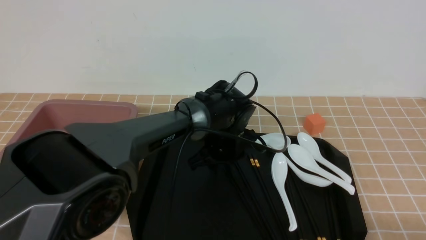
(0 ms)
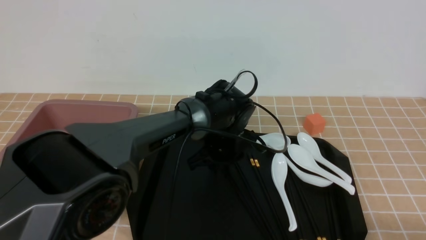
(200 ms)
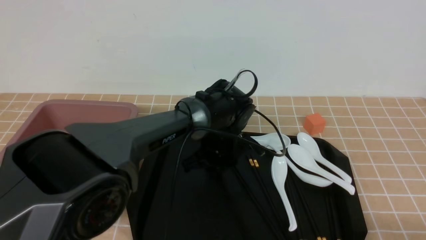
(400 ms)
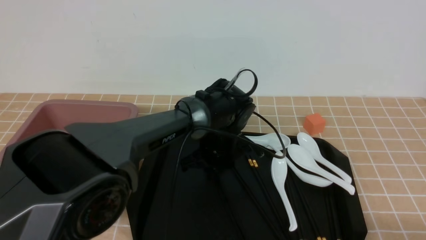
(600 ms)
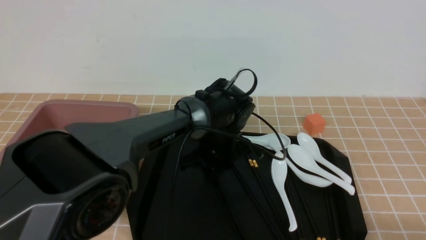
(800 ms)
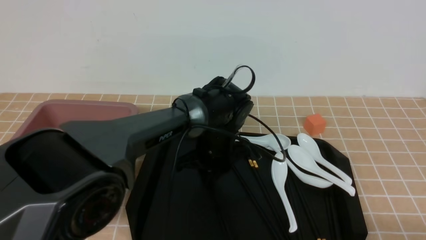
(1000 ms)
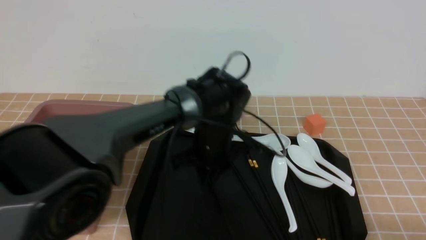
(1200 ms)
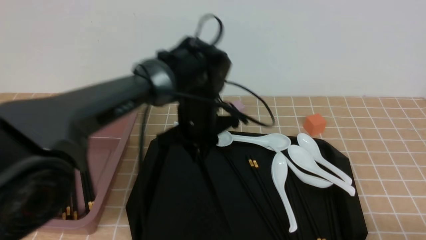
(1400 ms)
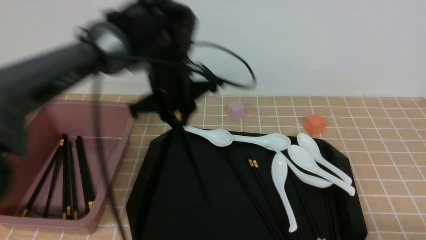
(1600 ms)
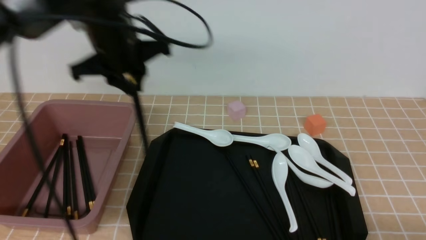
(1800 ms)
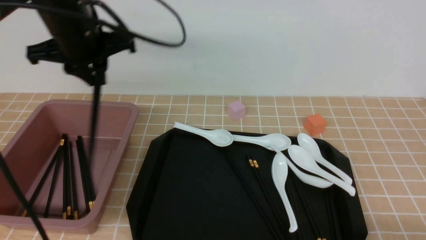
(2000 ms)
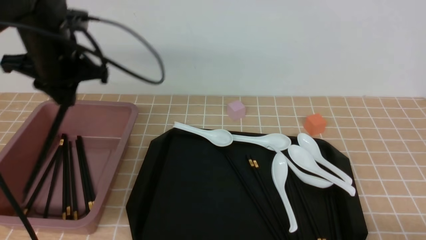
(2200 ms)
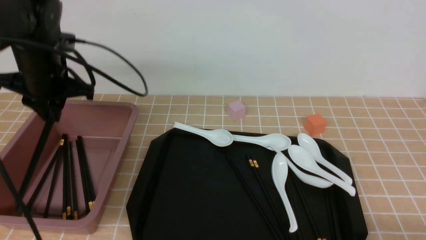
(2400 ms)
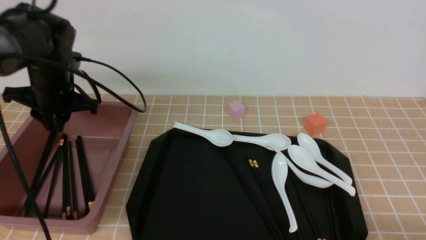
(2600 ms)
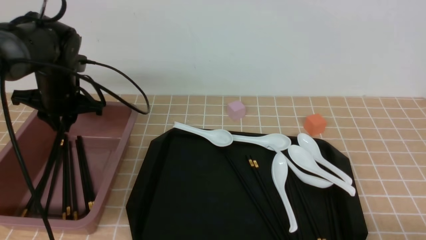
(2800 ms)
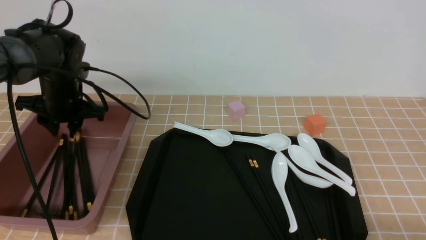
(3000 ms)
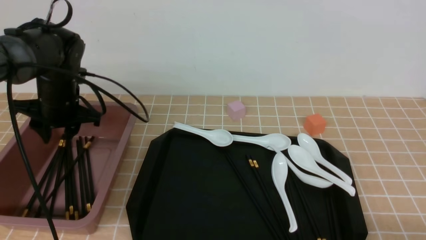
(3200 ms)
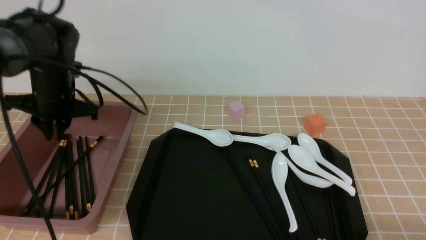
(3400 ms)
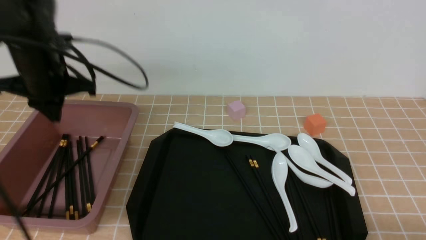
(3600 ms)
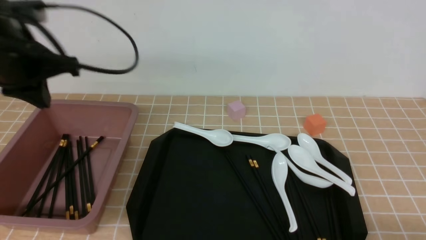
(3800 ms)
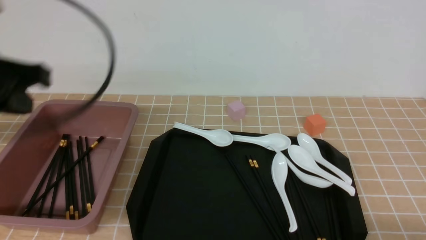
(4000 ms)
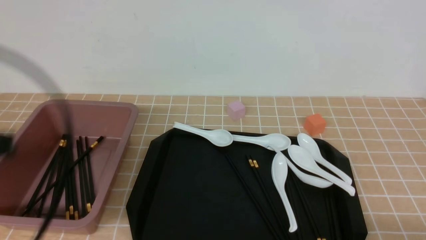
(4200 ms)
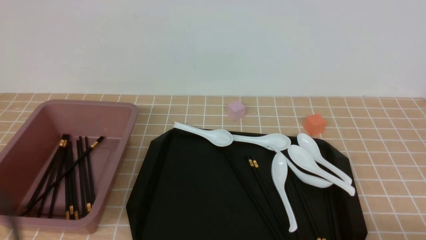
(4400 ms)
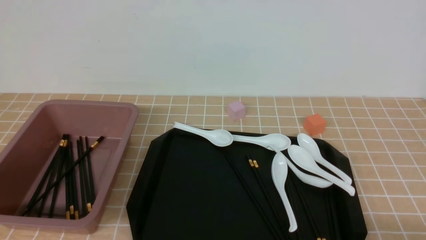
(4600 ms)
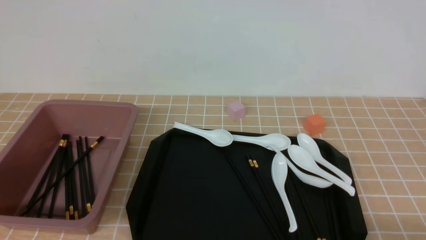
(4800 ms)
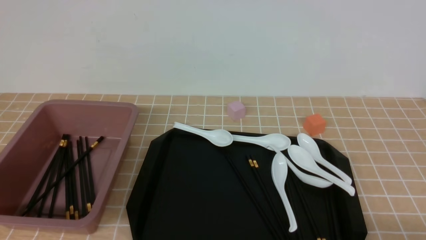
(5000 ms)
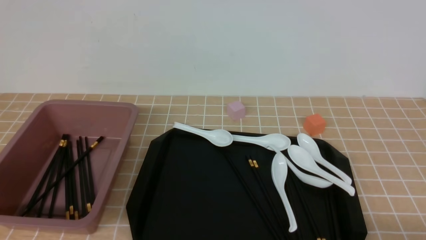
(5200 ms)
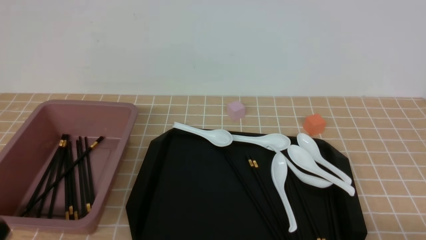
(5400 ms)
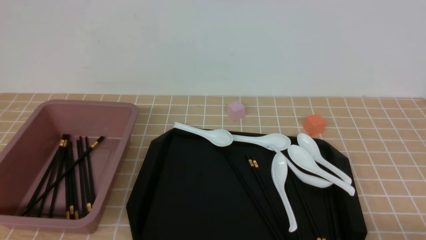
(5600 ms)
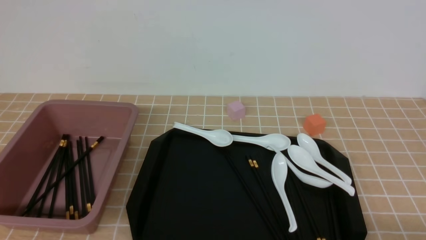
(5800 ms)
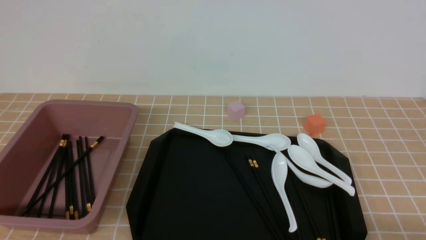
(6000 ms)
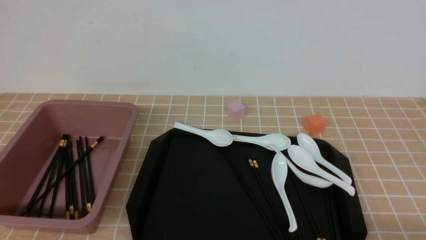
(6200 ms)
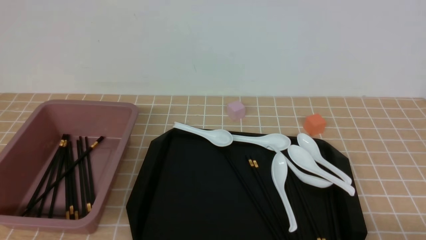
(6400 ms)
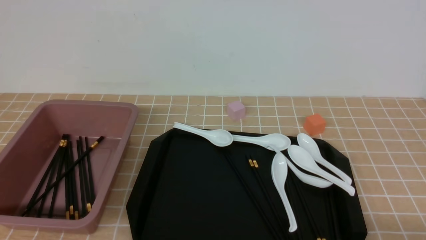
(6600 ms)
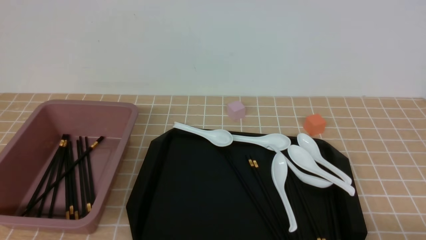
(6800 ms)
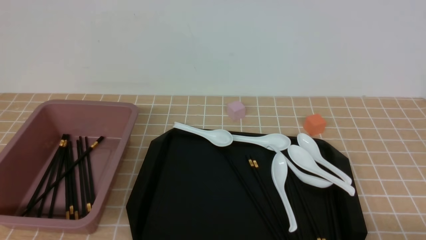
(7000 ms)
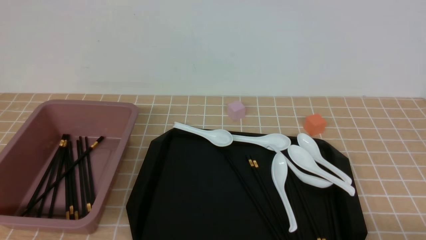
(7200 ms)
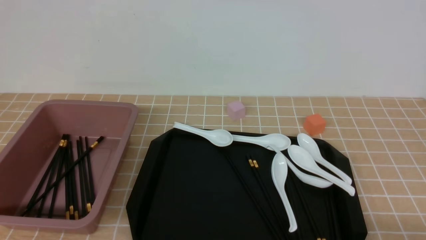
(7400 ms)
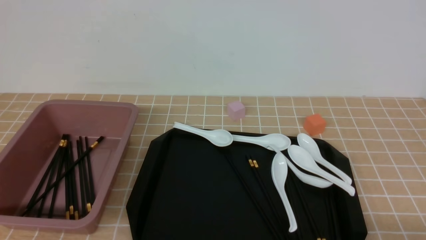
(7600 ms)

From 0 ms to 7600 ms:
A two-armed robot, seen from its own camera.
Step, from 1600 ms to 3400 ms: use the left arm to put the chopsticks into the lunch box.
From 0 ms to 1600 ms: The left gripper is displaced upward and to the left by some 15 cm, and closes.
From 1600 ms to 3000 ms: The left gripper heads to the left, covering about 20 cm.
From 3000 ms to 4600 ms: The left gripper heads backward, covering roughly 35 cm, and closes.
From 6000 ms to 7600 ms: Neither gripper changes place.

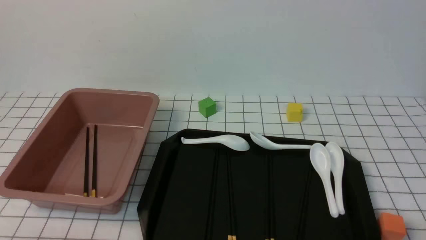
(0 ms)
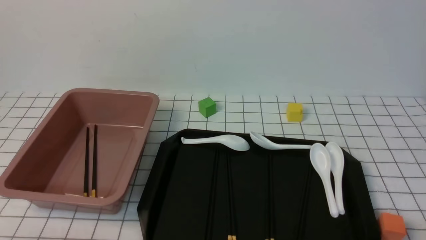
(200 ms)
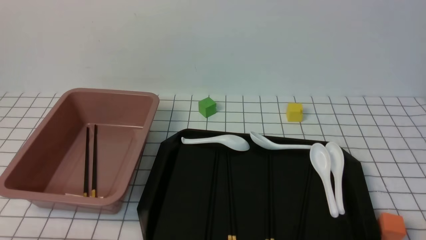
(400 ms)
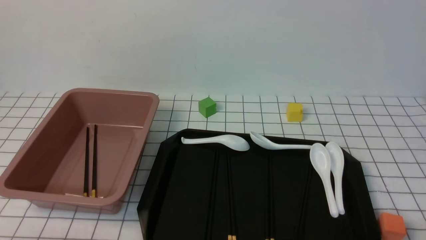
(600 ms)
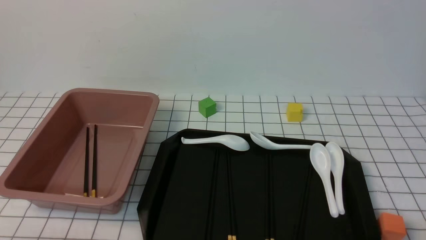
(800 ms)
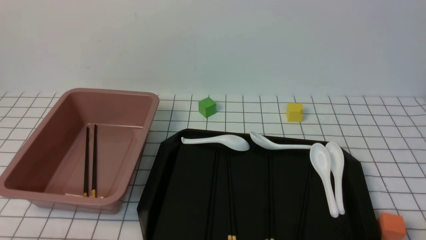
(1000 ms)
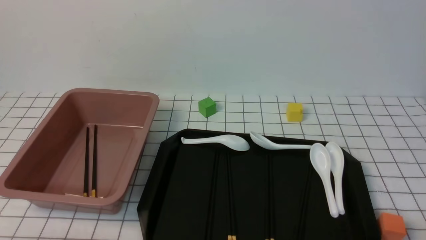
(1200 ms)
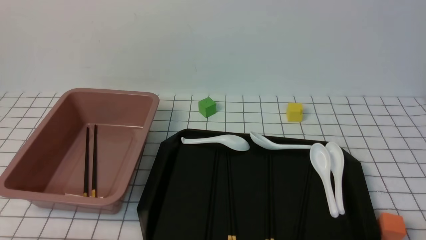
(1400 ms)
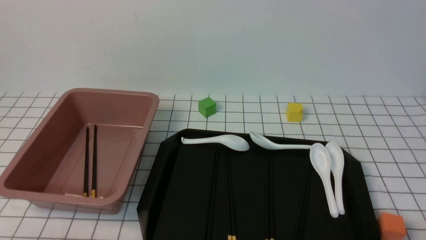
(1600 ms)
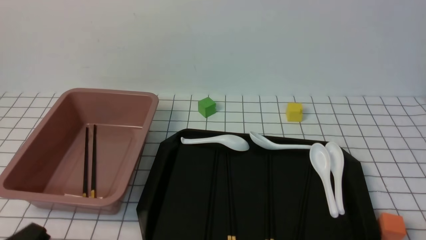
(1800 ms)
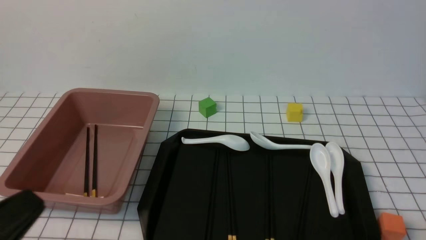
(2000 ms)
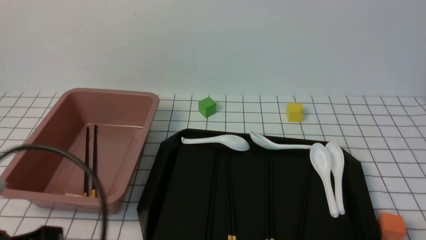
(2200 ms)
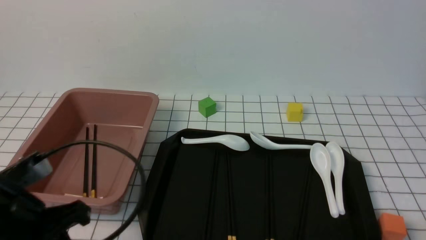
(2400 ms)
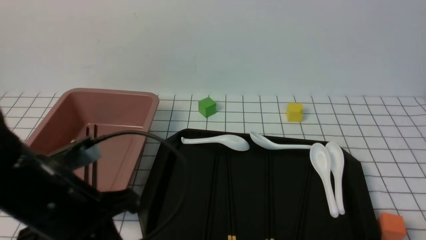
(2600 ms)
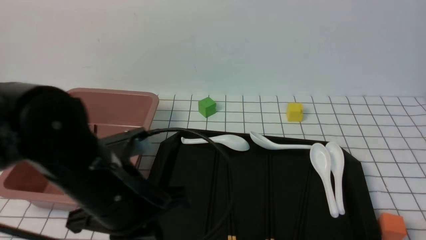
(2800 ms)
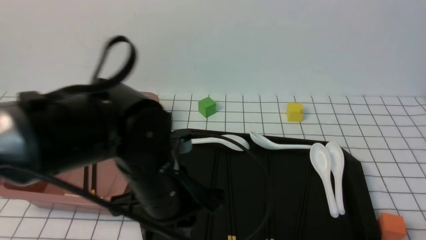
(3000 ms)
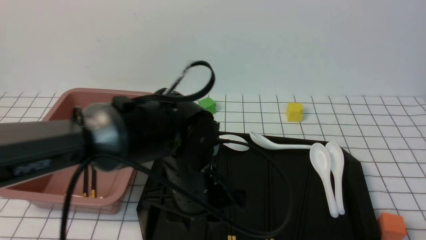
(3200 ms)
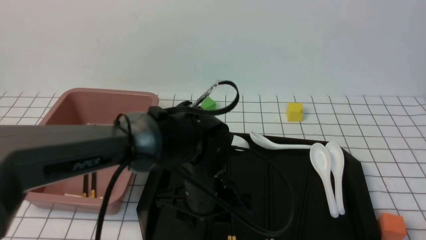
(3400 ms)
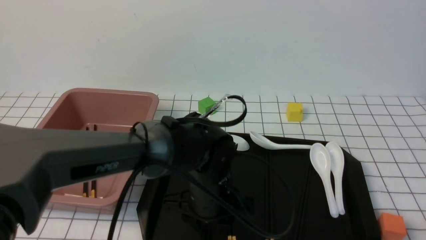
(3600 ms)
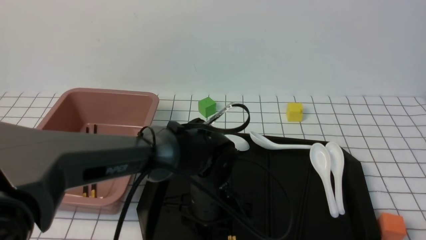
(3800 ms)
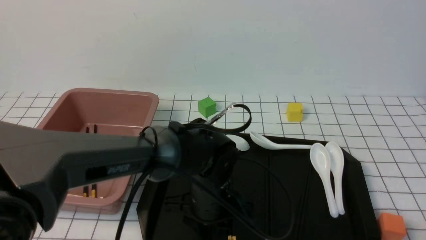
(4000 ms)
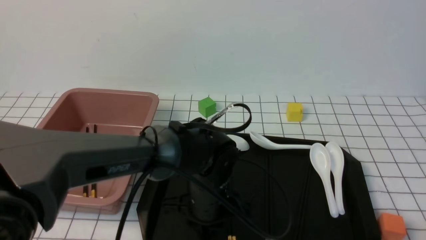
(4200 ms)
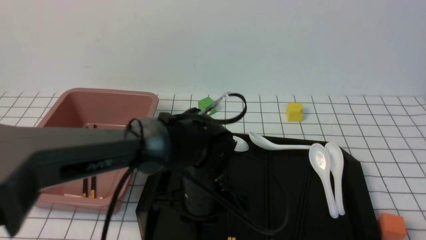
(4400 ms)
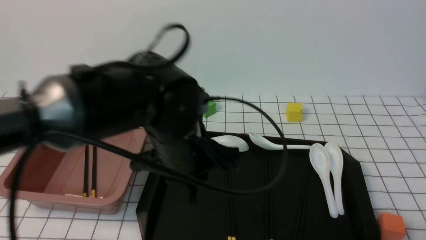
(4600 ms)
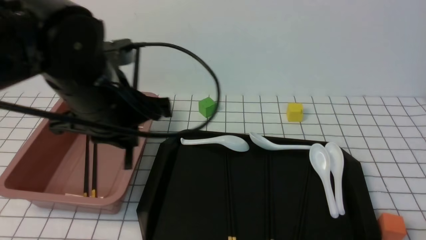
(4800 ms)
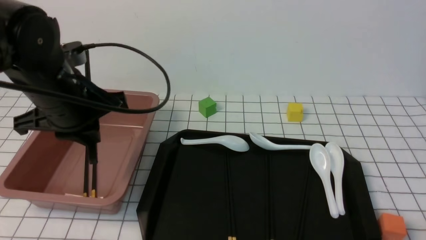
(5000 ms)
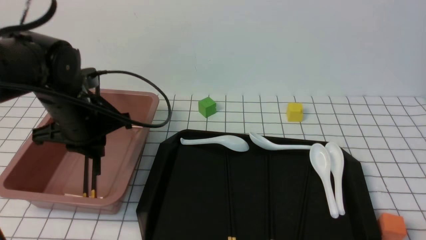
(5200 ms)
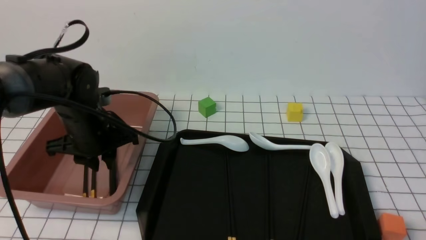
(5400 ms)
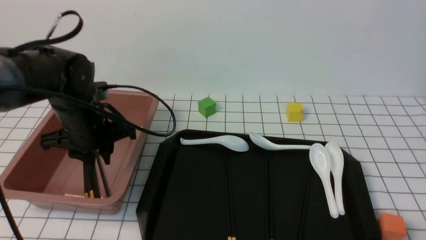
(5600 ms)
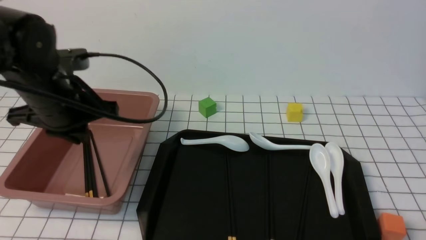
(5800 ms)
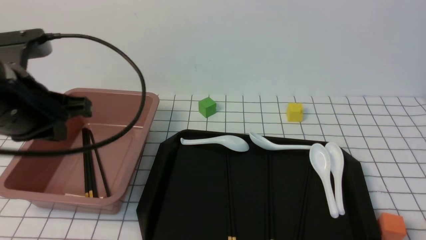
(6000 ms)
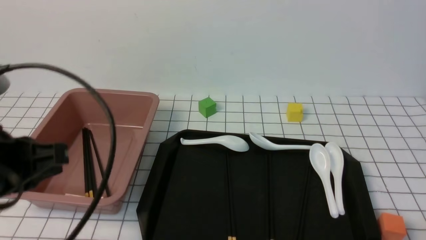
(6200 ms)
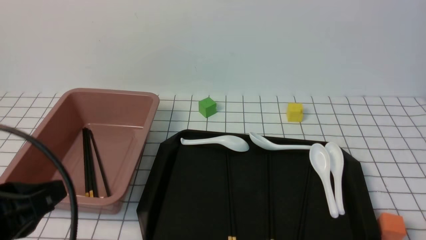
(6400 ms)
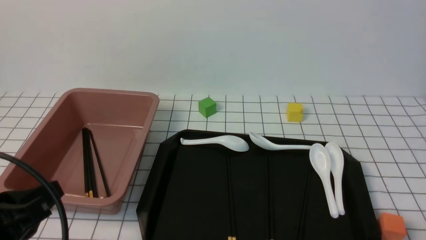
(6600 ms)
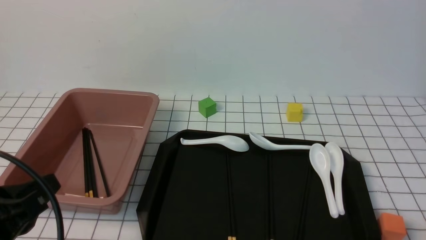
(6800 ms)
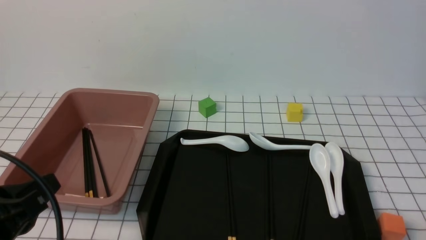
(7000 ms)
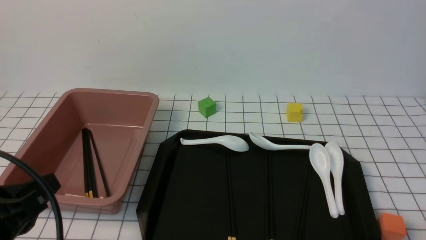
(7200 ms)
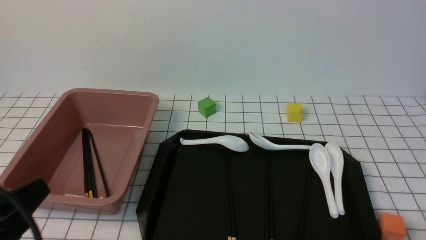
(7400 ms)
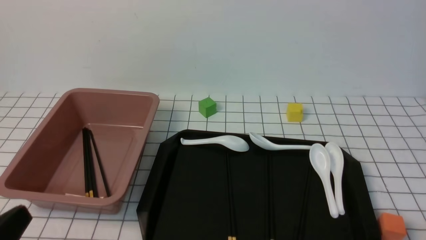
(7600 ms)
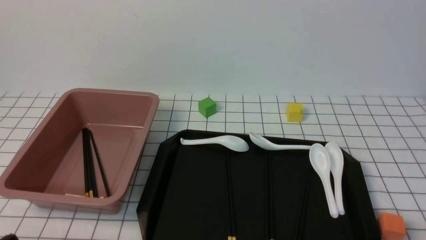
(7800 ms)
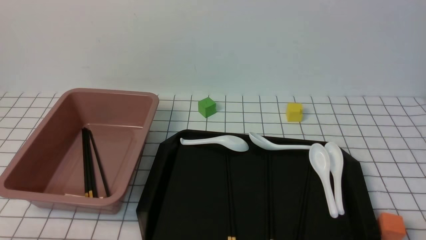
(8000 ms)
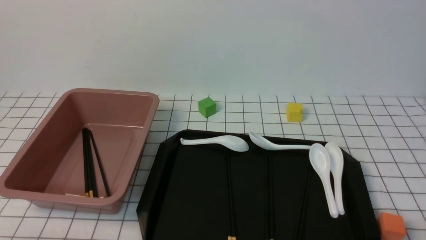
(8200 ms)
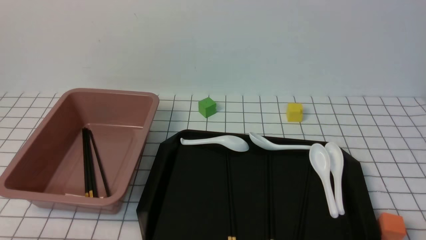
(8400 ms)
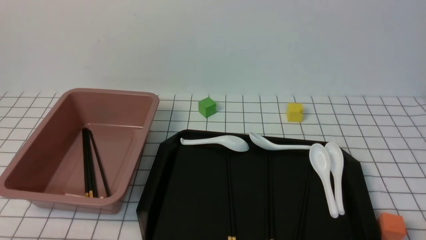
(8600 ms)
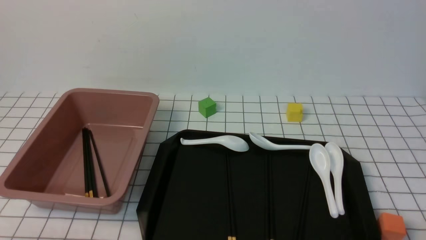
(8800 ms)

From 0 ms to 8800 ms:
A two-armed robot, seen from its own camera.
Step, from 0 ms to 4400 ms: use the left arm to grab a pair of chopsticks.
Step, from 4600 ms to 5800 ms: use the left arm to put the chopsticks into the lunch box.
From 1400 ms to 3000 ms: The left gripper shifts some 25 cm forward and to the right.
From 3000 ms to 4400 ms: The left gripper opens, then closes again.
From 4400 ms to 5800 ms: The left gripper goes roughly 20 cm to the left and upward.
From 5800 ms to 7400 ms: The left gripper moves backward, about 20 cm.
From 7400 ms to 8800 ms: The left gripper moves downward, roughly 10 cm.
